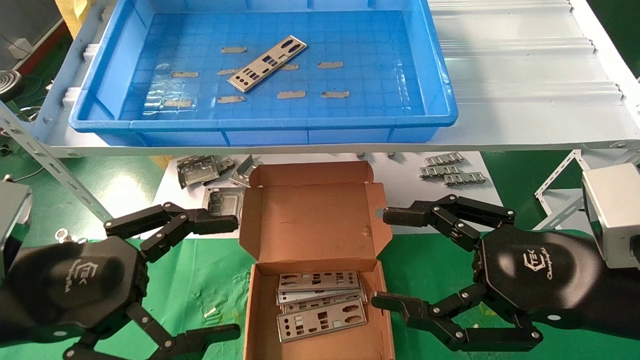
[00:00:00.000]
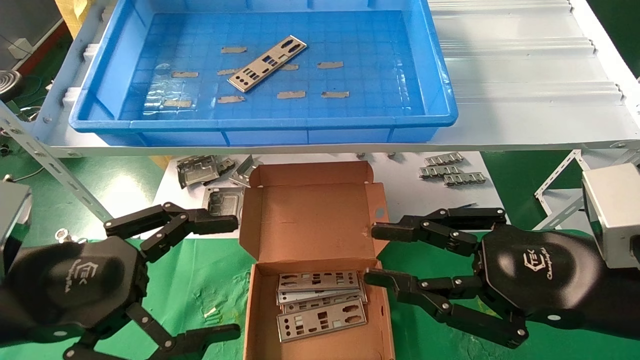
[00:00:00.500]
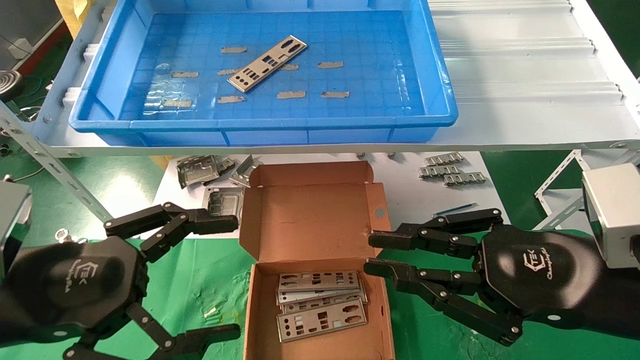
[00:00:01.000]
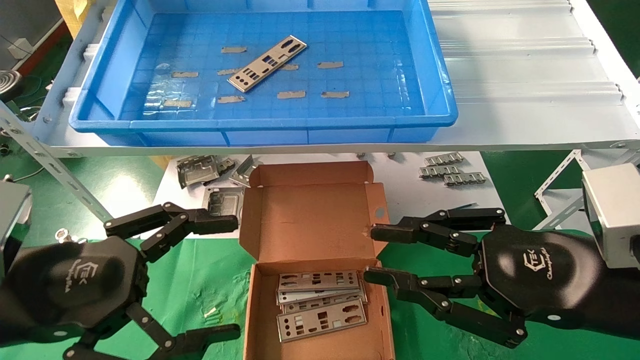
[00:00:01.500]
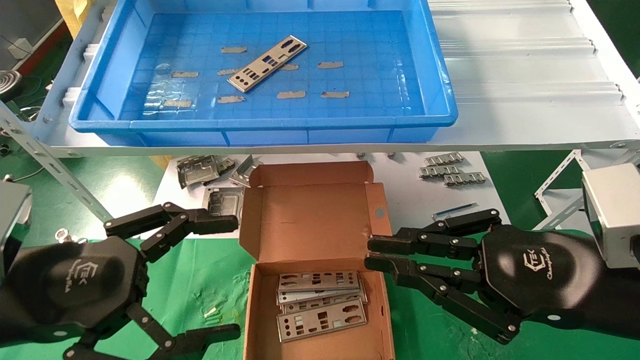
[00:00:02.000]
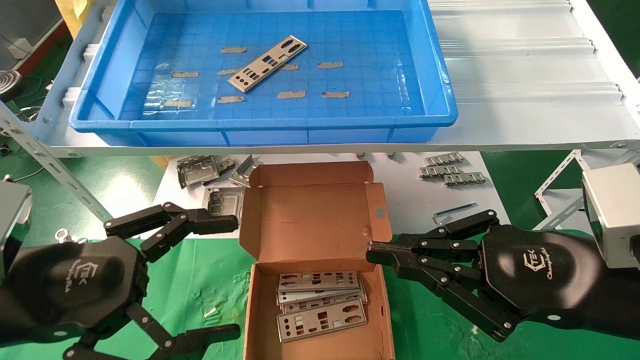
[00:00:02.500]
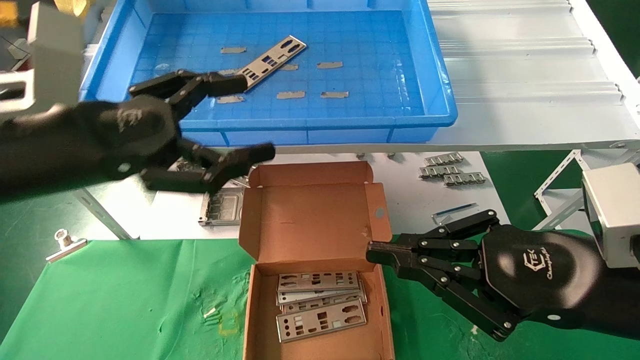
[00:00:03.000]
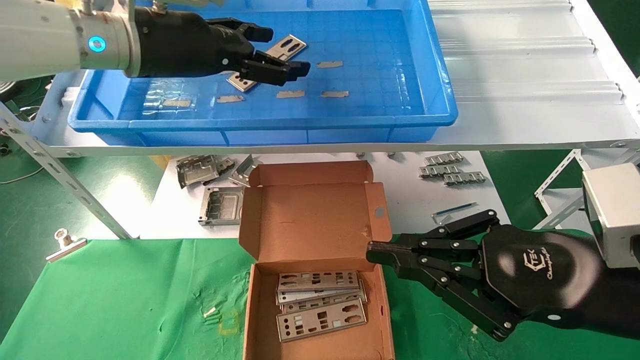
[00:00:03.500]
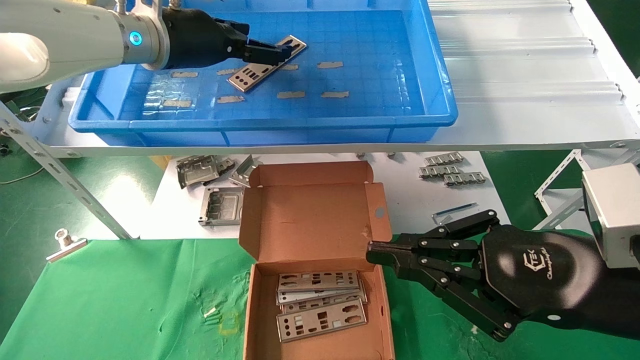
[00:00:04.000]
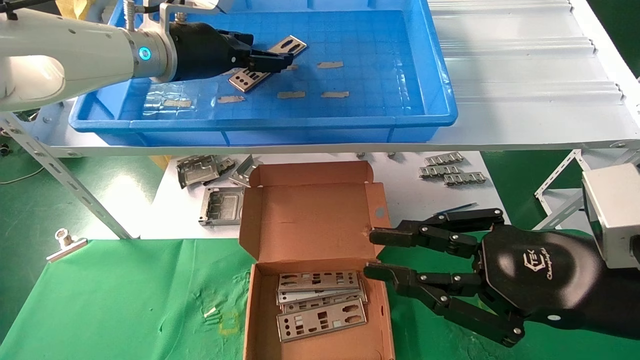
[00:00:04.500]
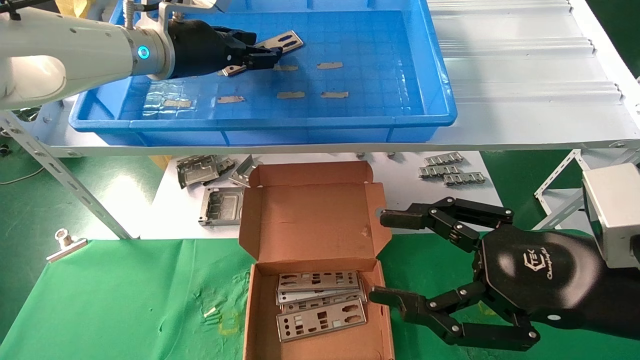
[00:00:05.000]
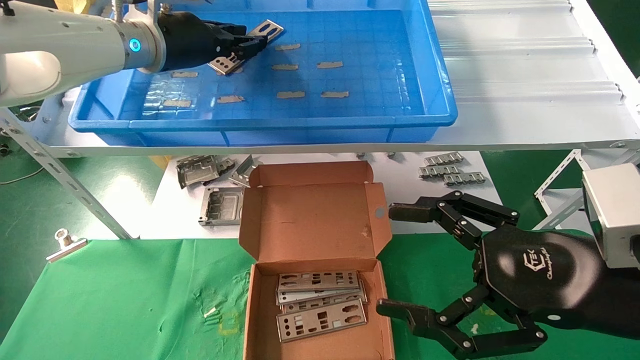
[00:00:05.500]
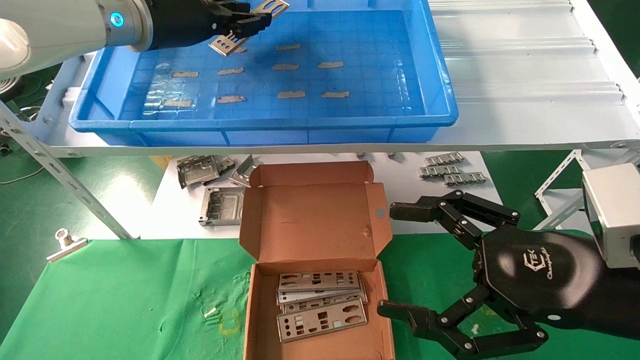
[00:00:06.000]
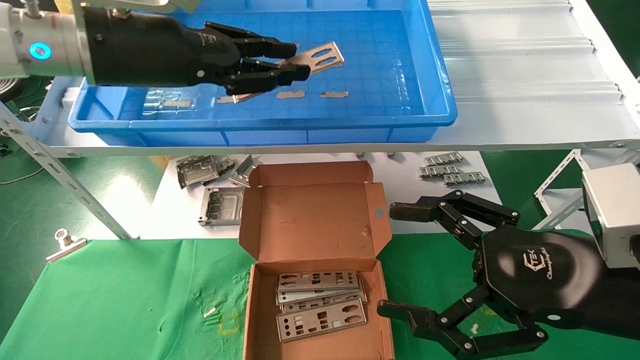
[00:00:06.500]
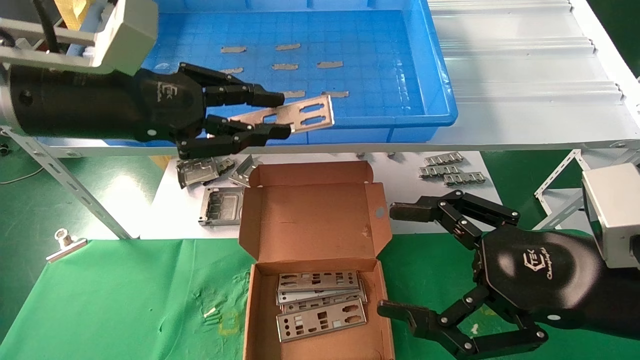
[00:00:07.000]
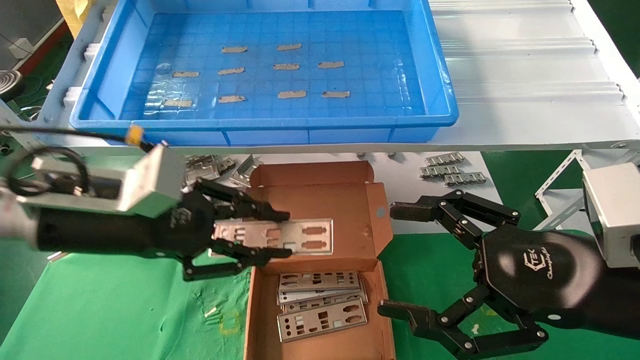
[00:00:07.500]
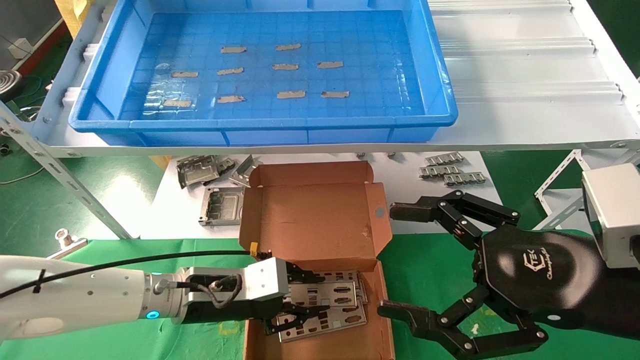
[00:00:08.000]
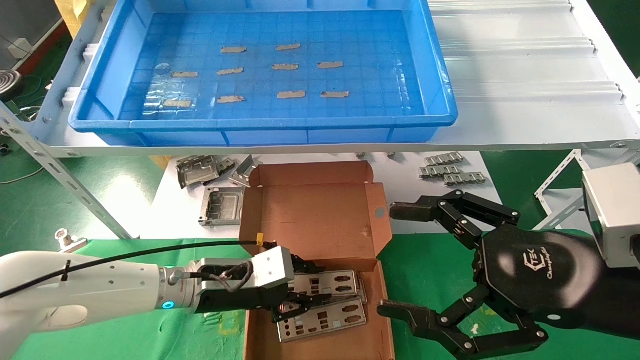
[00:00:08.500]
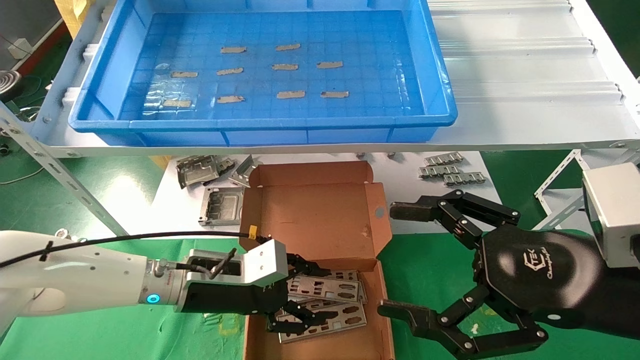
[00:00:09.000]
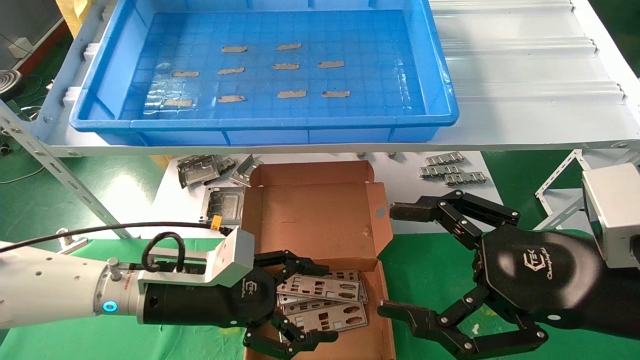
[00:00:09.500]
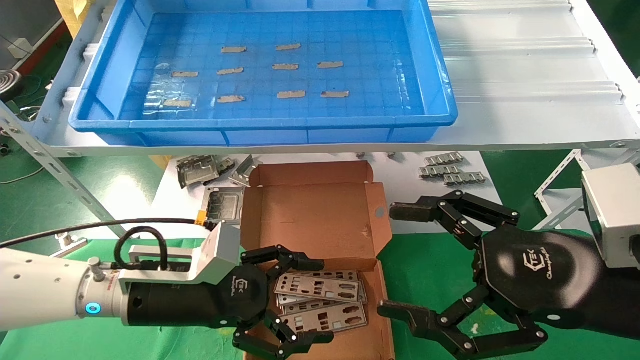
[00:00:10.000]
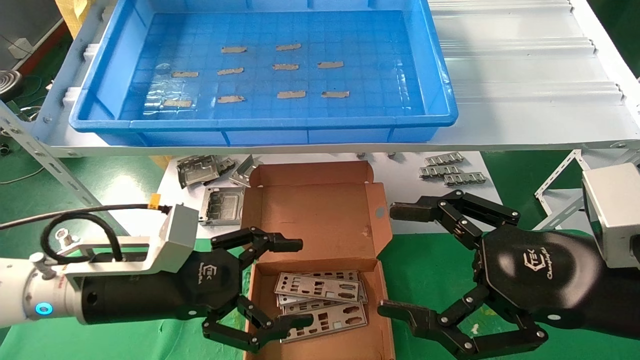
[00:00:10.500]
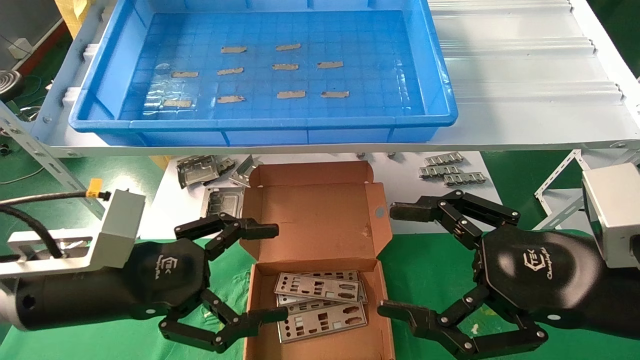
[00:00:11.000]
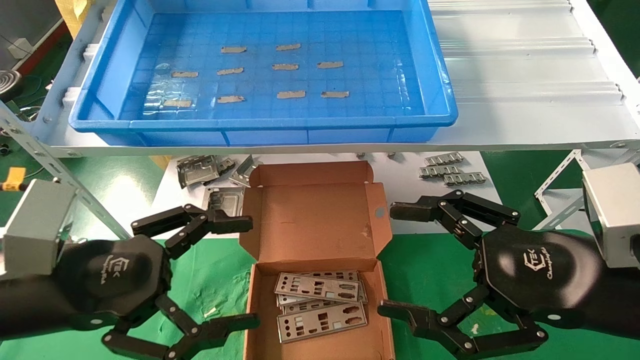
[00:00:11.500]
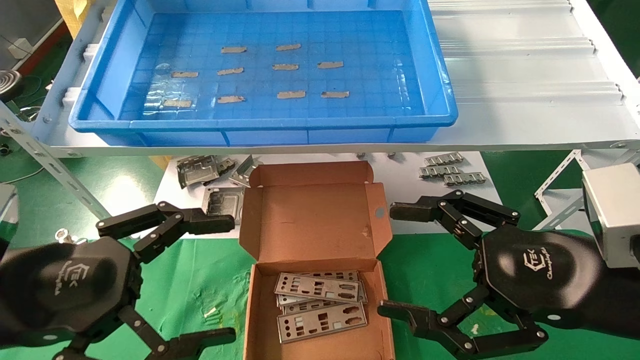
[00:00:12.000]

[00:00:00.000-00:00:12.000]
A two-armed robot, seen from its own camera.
Task of the whole recording: pick up the parts on the tray and put them in the cardboard box.
Step, 00:00:03.500 to 00:00:05.500: Pick up the IO bracket from the container box.
Step, 00:00:06.000 to 00:00:08.500: Place the IO bracket into the ingredient slot.
00:00:00.000 to 00:00:02.000: The right gripper closes.
00:00:02.000 to 00:00:04.000: The left gripper moves forward and upward, about 30 cm.
00:00:04.000 to 00:00:06.000: The right gripper opens. The left gripper closes.
00:00:06.000 to 00:00:08.000: The left gripper shifts approximately 35 cm downward.
00:00:08.000 to 00:00:10.000: The left gripper moves approximately 5 cm, and opens up.
00:00:10.000 to 00:00:12.000: The left gripper moves backward, to the left and upward, some 15 cm.

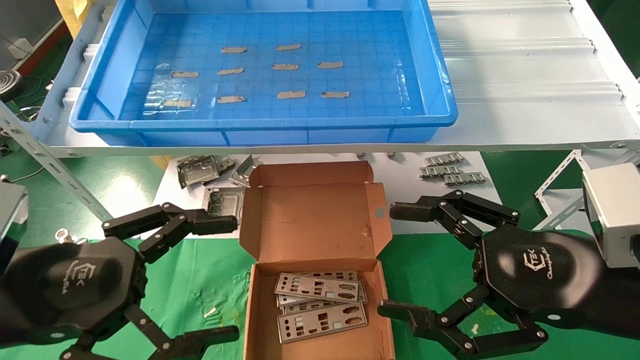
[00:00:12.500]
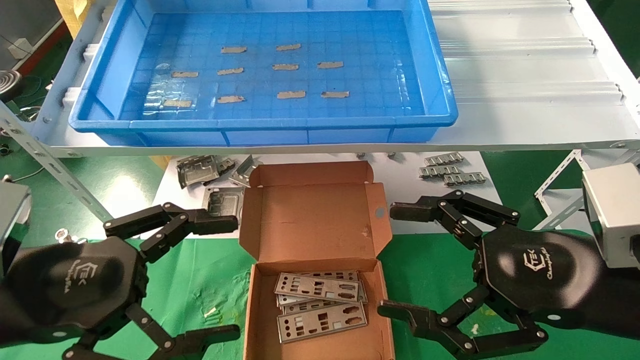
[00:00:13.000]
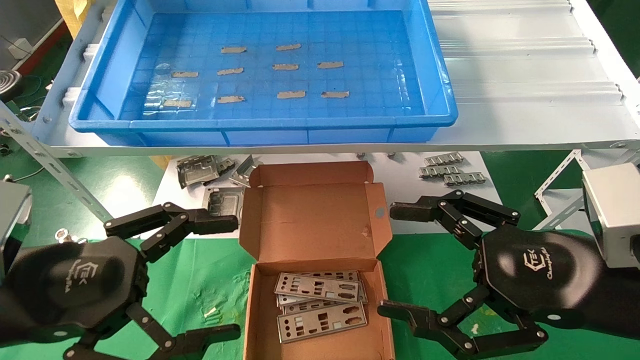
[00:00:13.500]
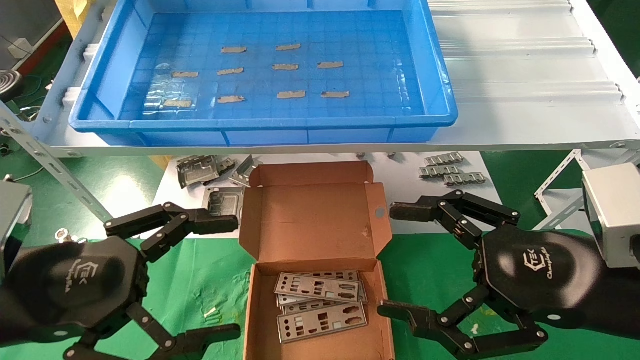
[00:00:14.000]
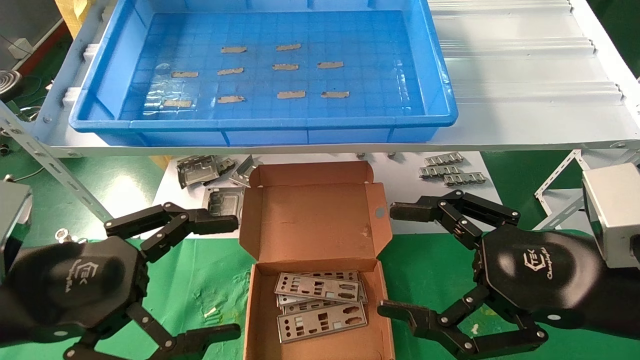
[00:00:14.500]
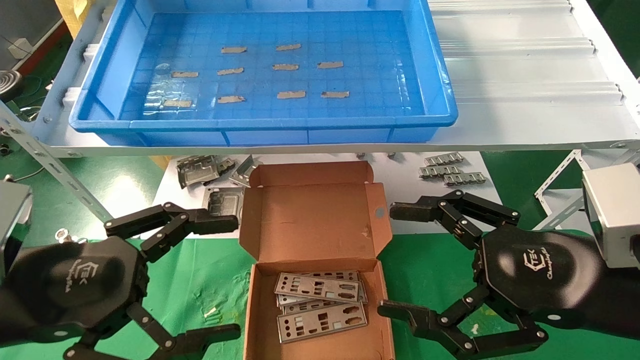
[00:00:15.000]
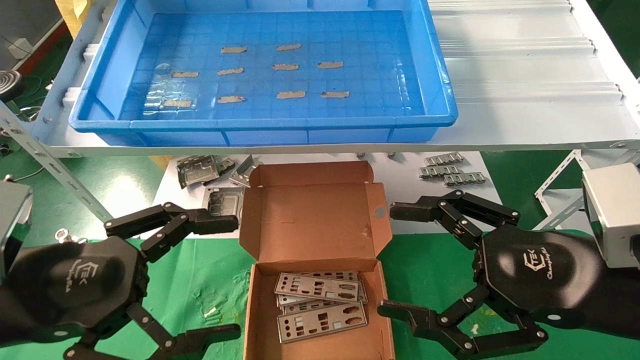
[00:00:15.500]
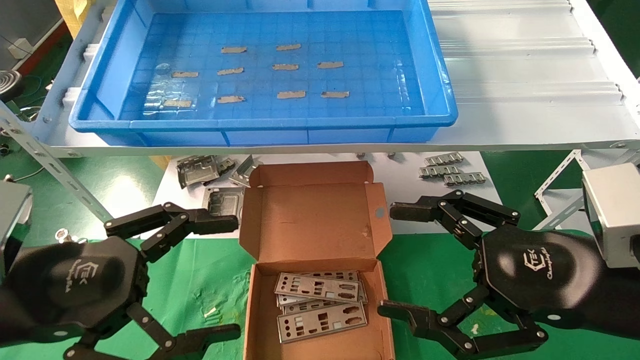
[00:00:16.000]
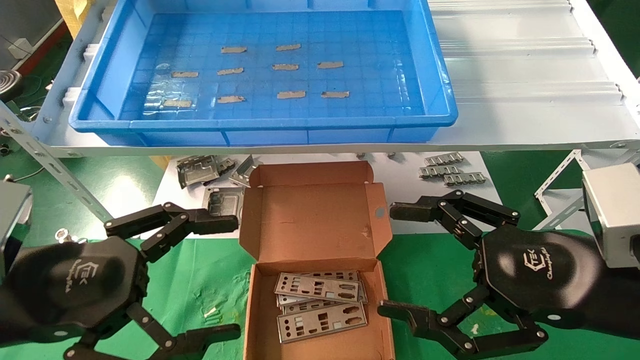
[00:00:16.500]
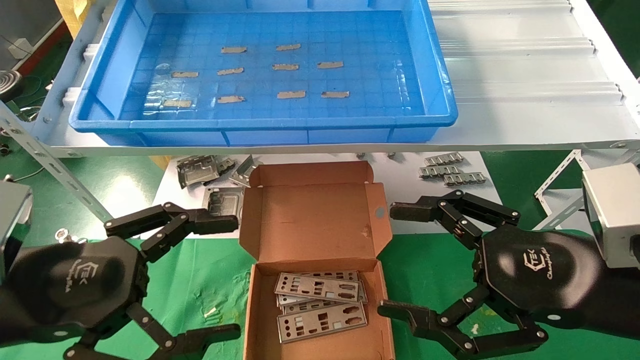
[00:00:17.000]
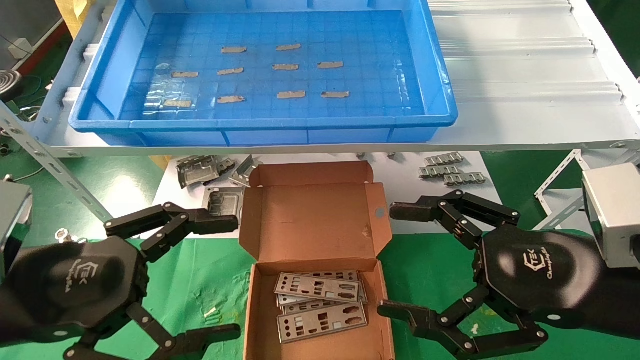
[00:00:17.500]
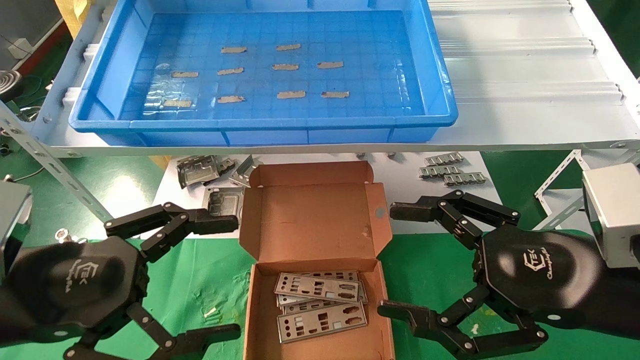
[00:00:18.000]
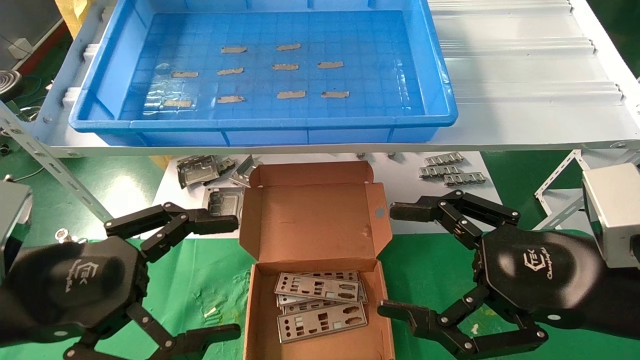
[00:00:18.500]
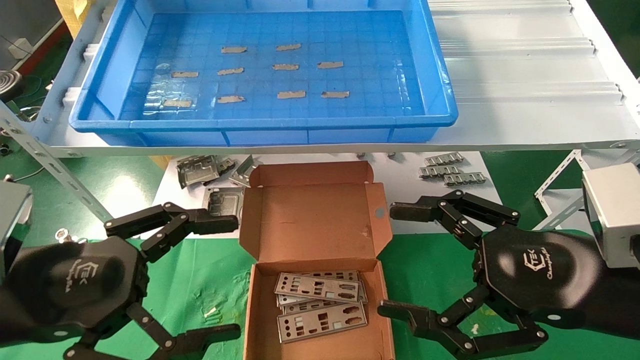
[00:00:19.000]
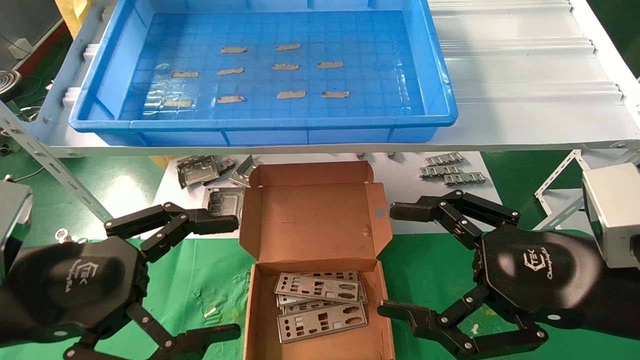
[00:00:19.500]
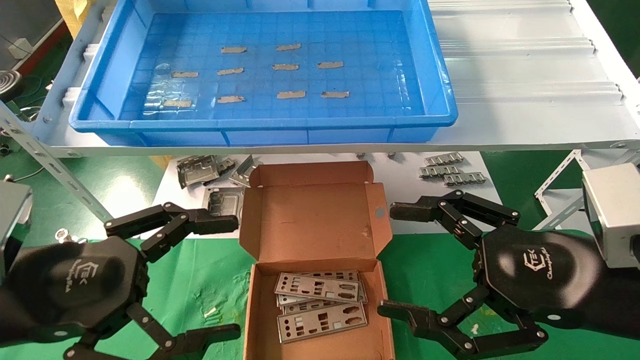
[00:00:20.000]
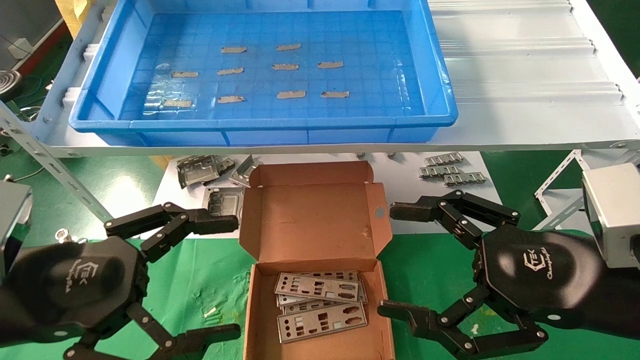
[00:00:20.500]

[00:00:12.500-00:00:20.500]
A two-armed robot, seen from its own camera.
Task of the whole recording: pick up the parts on the tray and put them in the cardboard box.
00:00:12.500 to 00:00:20.500: Both grippers stay about where they are.
